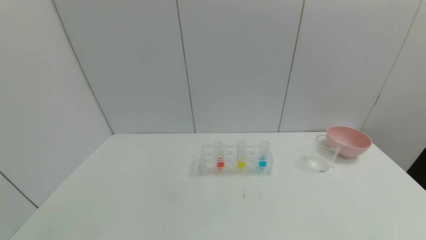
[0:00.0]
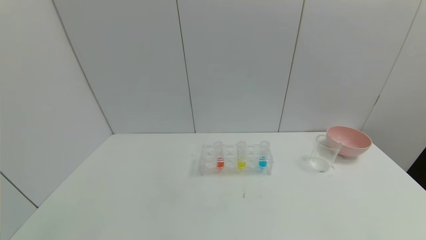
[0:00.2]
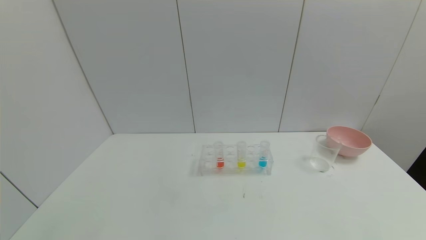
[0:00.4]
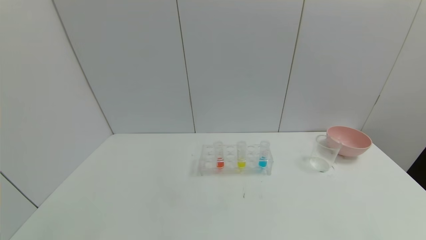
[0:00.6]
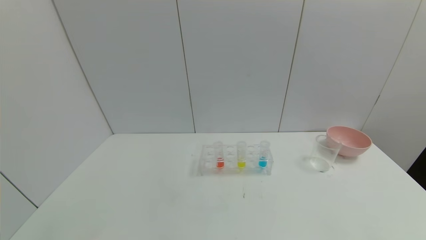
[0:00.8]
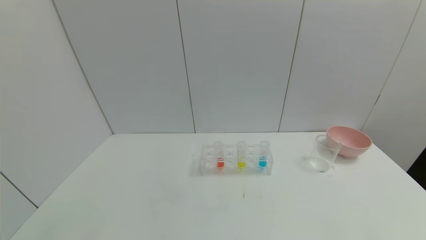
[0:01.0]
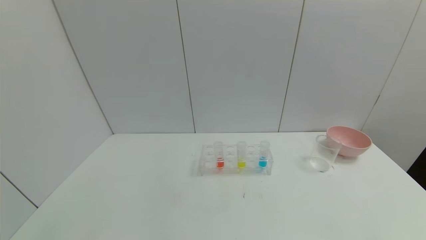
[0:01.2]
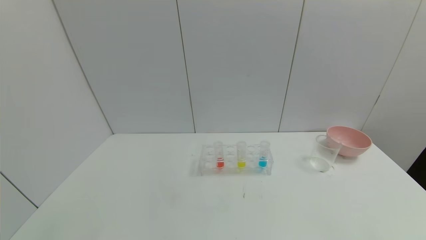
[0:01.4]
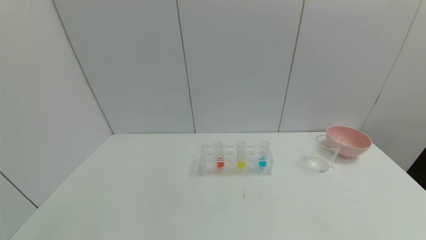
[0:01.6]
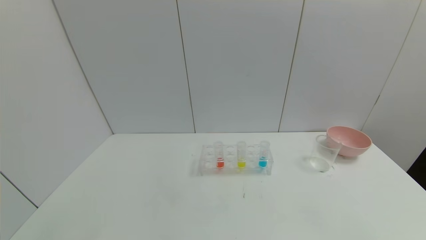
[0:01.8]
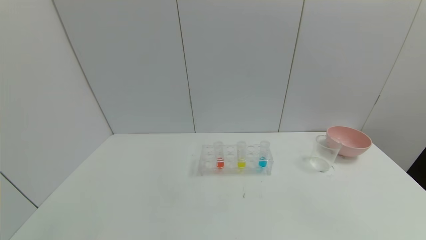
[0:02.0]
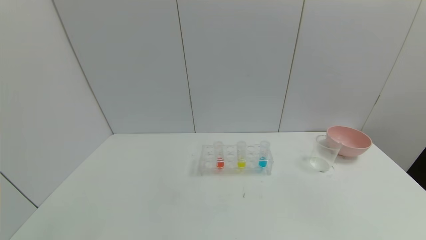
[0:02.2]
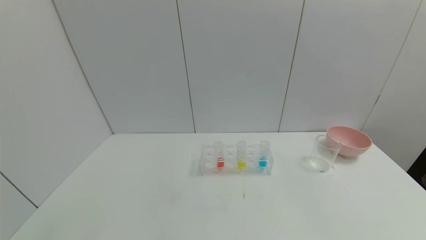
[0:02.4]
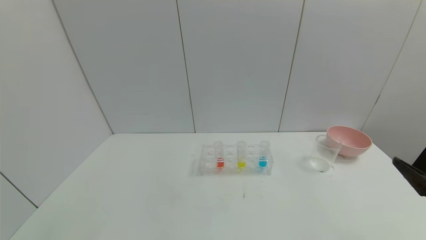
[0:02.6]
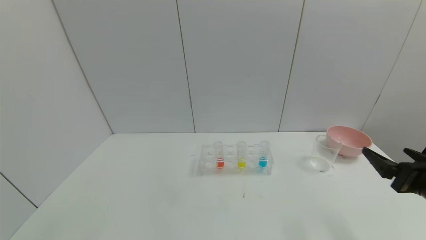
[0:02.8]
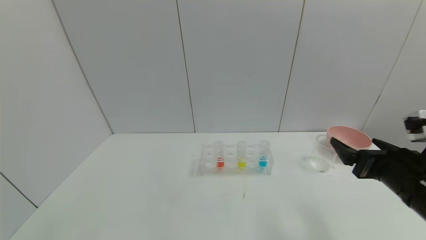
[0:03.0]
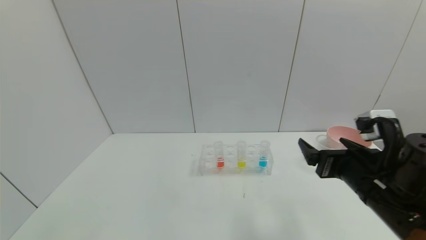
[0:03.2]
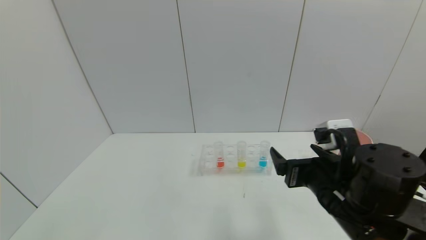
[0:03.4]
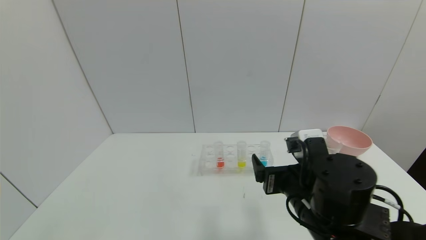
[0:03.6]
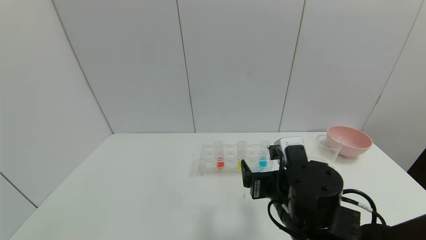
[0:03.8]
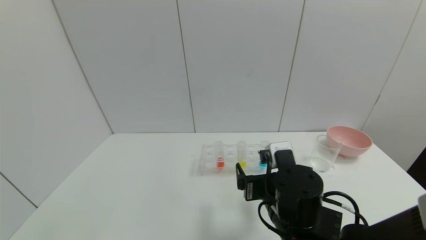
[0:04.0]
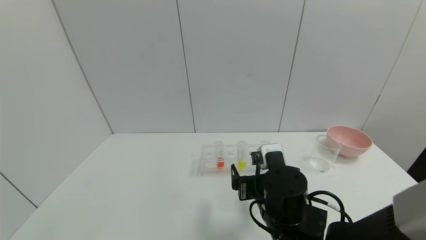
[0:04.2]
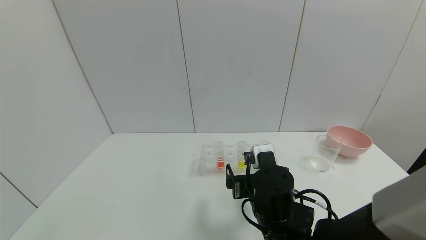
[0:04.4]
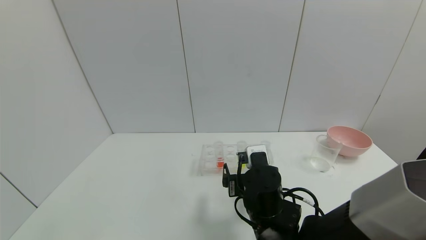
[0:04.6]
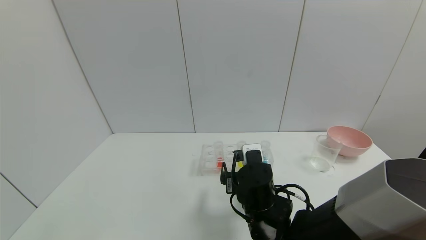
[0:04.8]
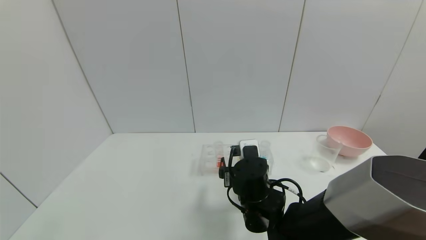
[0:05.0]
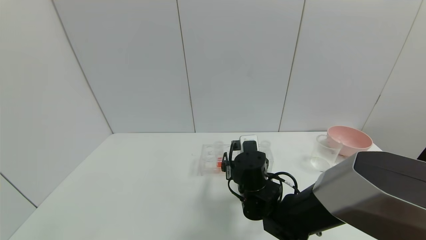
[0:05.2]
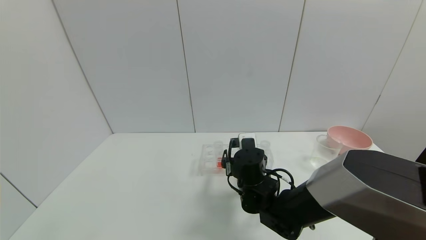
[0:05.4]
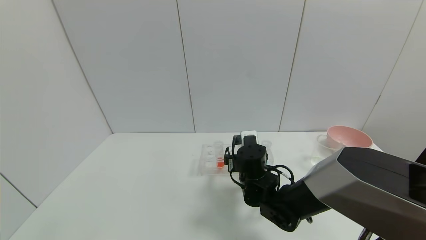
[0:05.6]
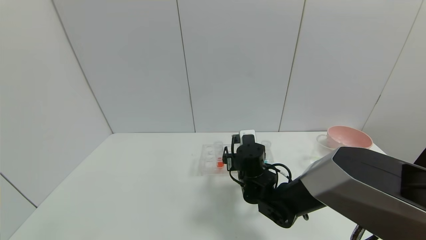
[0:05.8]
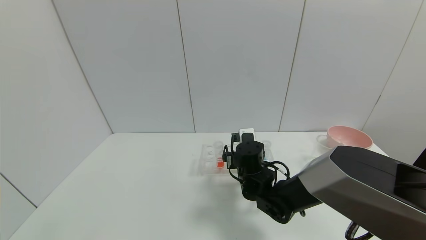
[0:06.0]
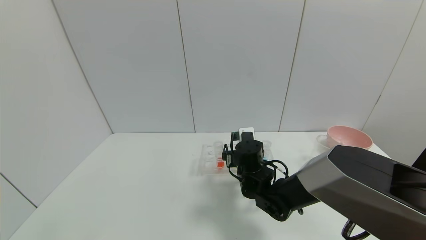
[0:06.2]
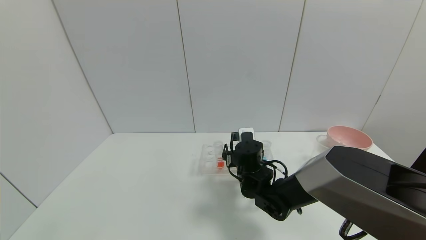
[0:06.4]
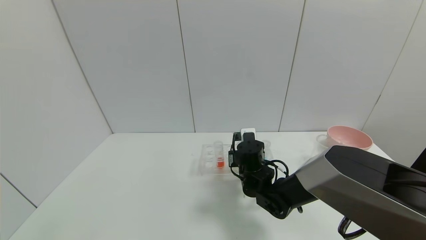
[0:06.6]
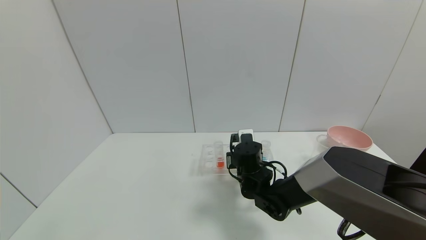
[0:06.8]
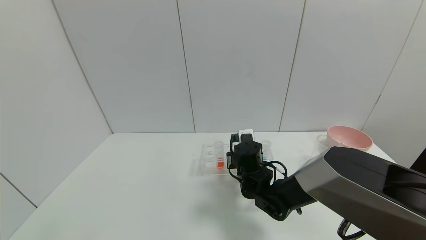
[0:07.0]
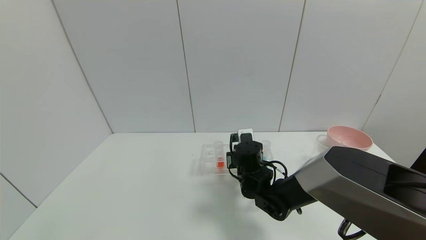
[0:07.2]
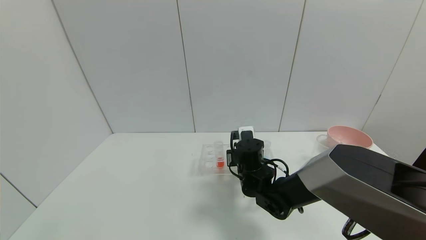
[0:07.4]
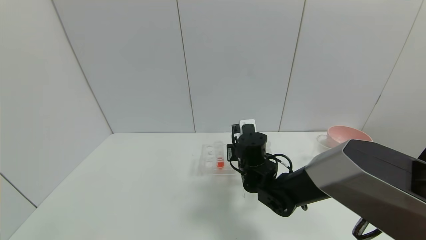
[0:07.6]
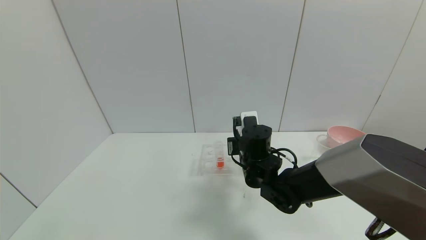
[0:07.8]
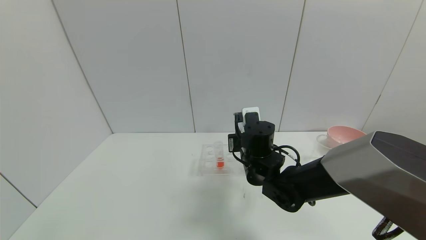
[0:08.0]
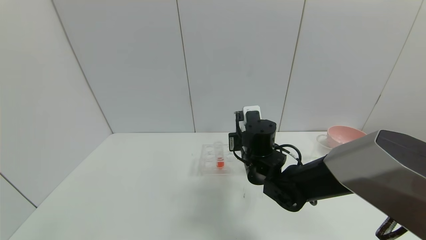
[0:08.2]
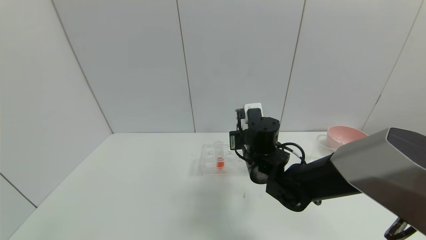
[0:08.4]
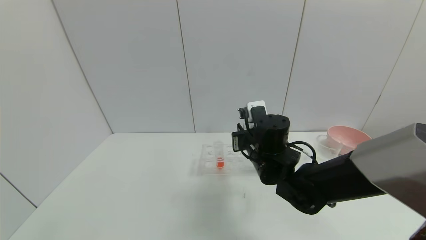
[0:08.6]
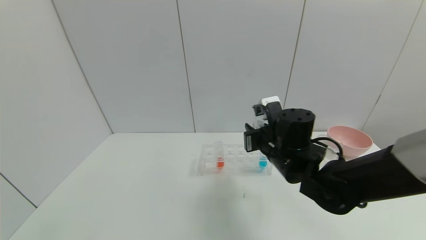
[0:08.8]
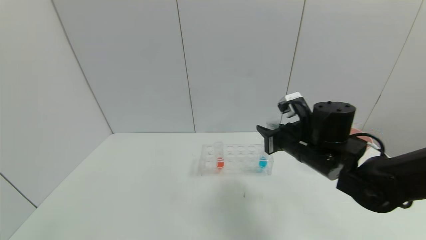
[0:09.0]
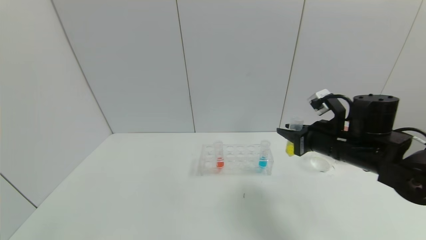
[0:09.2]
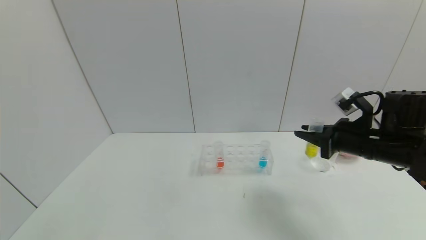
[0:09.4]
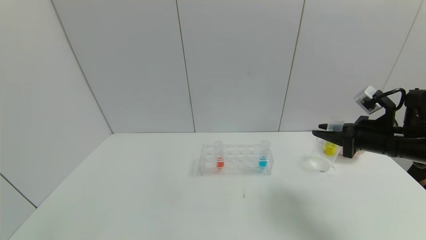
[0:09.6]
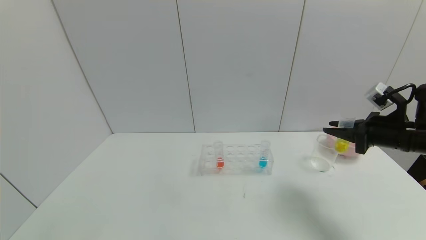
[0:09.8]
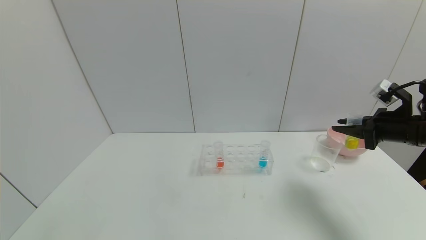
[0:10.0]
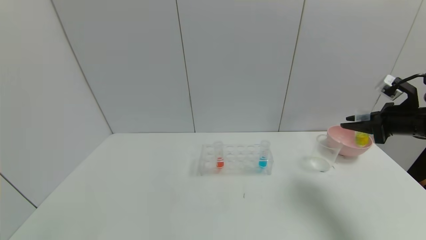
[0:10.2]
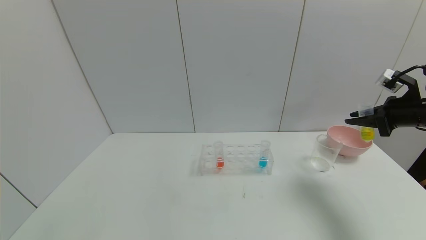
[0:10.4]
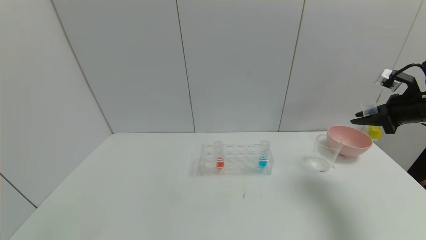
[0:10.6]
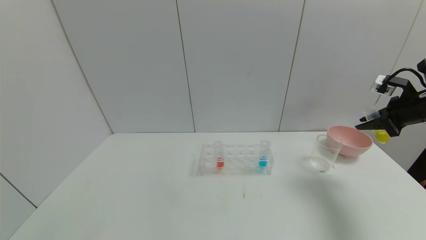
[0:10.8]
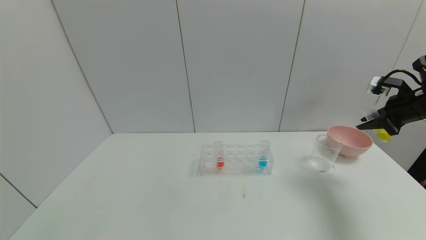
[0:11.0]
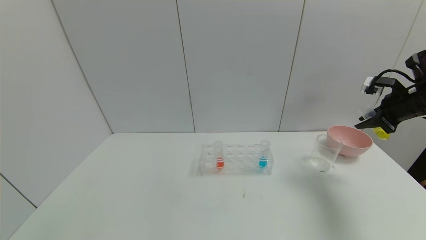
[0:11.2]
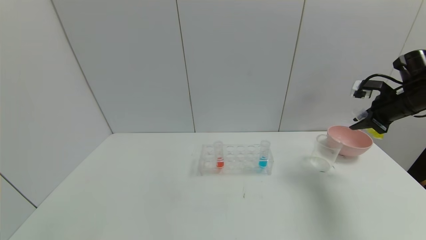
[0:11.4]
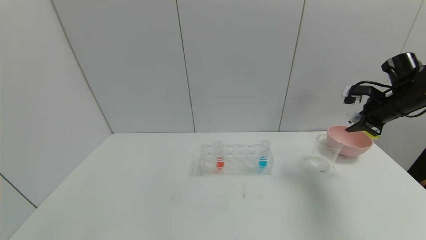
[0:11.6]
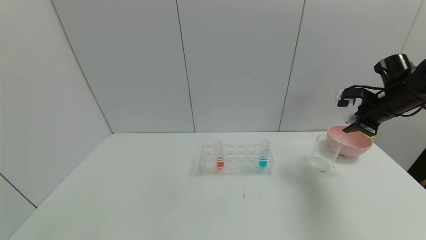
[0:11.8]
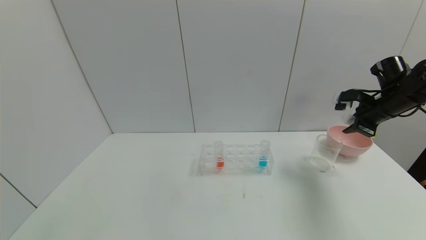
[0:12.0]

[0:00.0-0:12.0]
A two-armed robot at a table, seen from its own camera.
Task of the whole recording: pick up the test tube with yellow pigment and the test tube with blue pigment by grippers and pour them into the beaker.
Step, 0:00.0 to 0:09.0: Pick up the test tube containing the yellow reagent with right gripper.
0:01.6 to 0:03.0: The right gripper heads forward, covering approximately 25 cm.
0:03.0 to 0:04.4: The right gripper heads to the left and downward, covering some 20 cm.
0:04.4 to 0:06.0: The right gripper is displaced forward by roughly 10 cm.
0:06.0 to 0:07.6: The right gripper closes.
0:07.6 to 0:09.0: The right gripper shifts approximately 15 cm to the right and upward.
0:09.0 to 0:10.4: The right gripper moves to the right, approximately 25 cm.
0:10.4 to 0:12.0: The right gripper heads forward, covering roughly 5 cm.

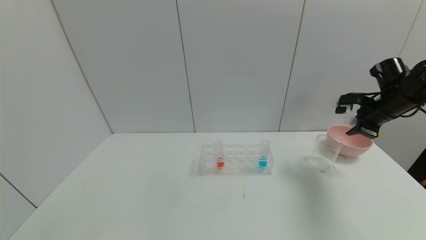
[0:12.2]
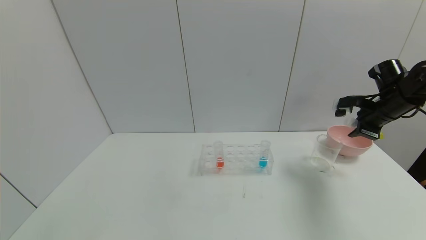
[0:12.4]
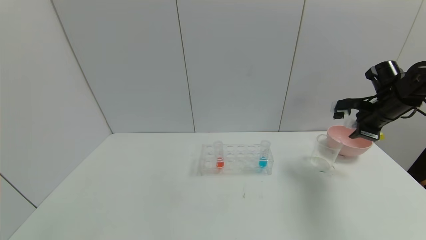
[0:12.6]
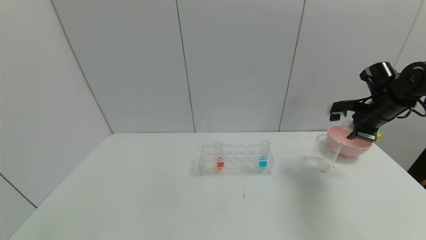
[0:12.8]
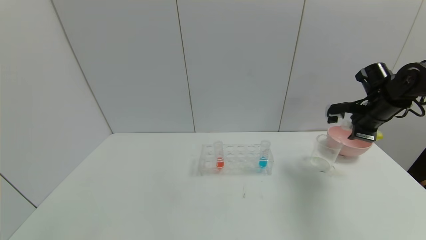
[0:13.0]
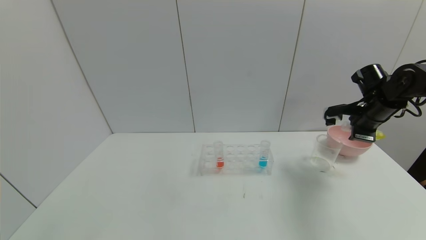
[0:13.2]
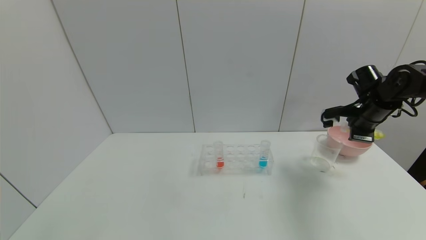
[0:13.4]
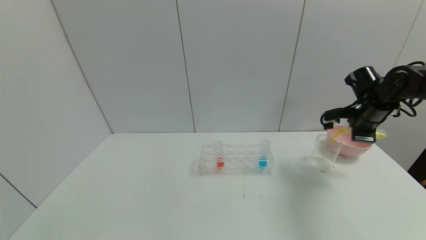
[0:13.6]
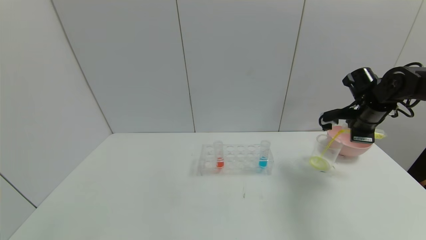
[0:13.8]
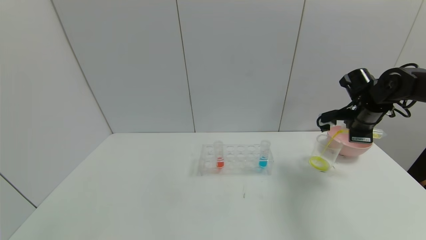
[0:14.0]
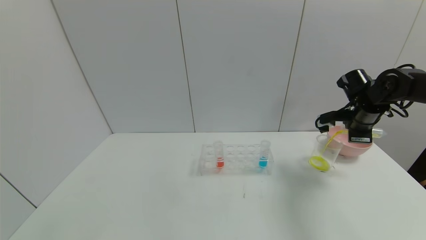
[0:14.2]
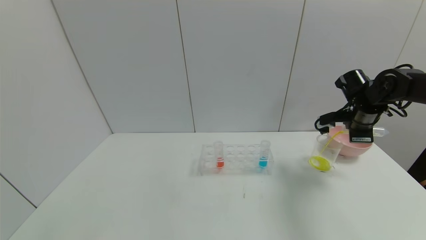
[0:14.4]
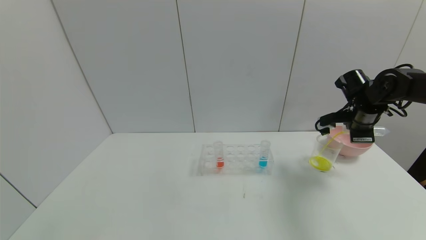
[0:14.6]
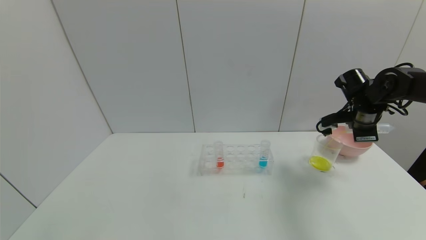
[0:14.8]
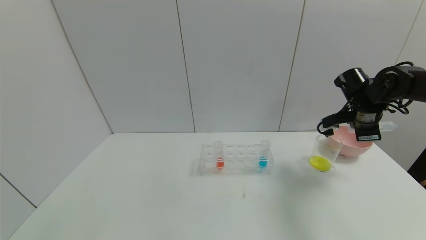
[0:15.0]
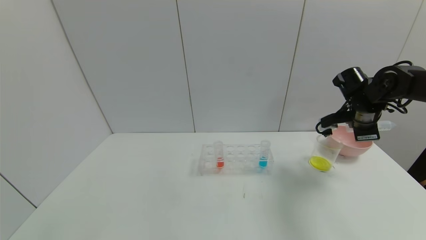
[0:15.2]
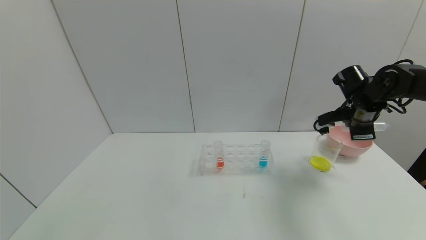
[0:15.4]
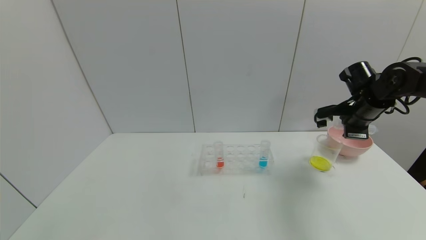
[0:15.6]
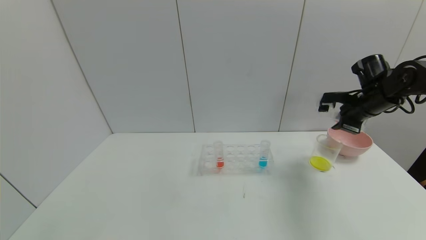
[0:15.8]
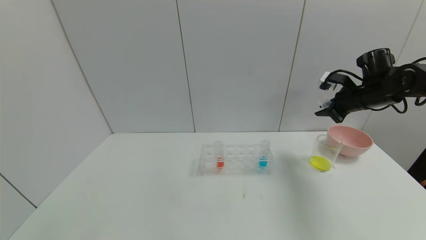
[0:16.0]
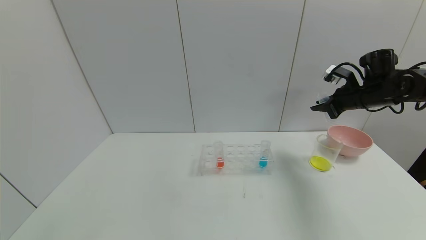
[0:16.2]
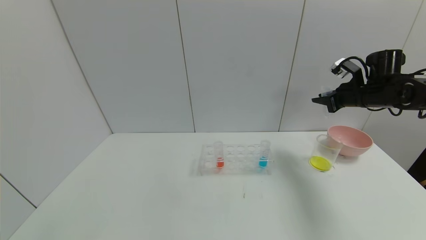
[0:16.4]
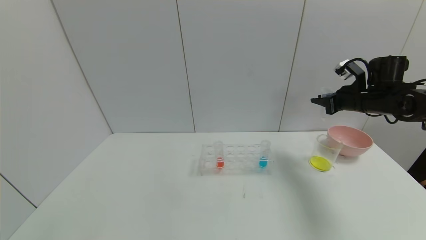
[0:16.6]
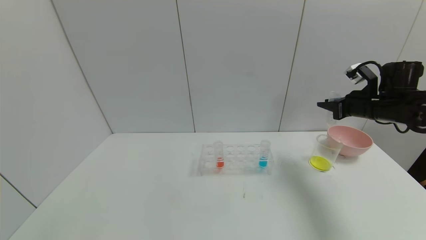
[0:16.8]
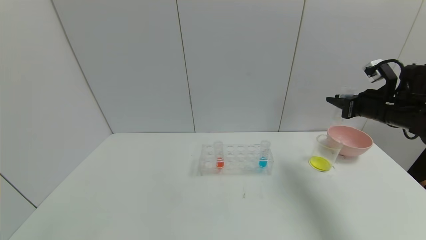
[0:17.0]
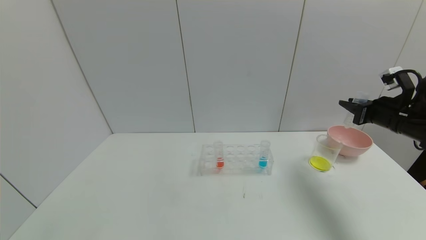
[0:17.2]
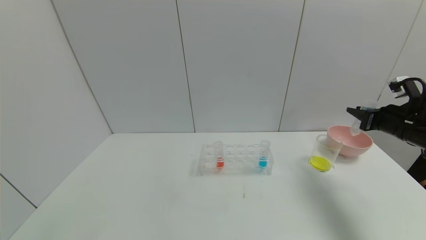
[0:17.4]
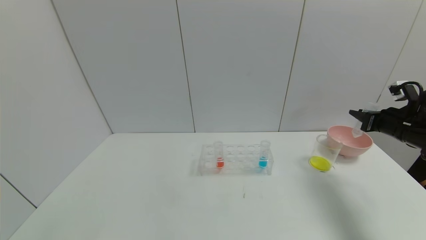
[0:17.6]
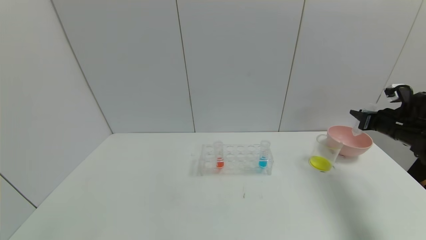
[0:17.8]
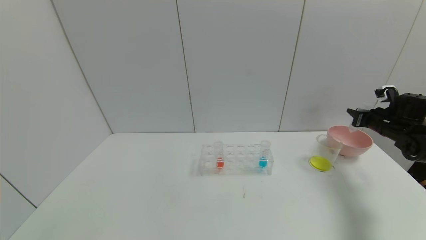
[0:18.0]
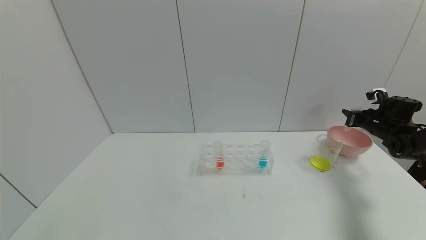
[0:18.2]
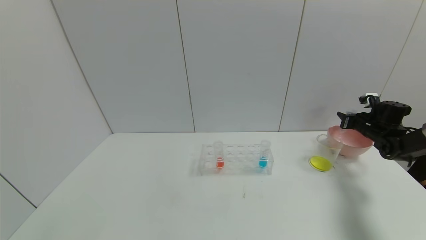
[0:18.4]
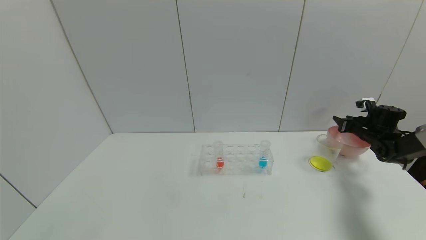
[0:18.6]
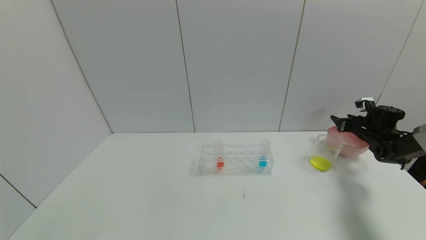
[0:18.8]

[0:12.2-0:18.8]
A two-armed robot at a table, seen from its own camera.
Task of the whole recording: pick up the test tube with yellow pigment and the test tube with blue pigment by grippers and pour them into the beaker.
Step, 0:12.2 to 0:17.0: Pour the yellow reagent into the graduated cylinder with right gripper.
0:13.8 to 0:15.4: There are only small adjustments of the grippers.
0:15.4 to 0:17.2: The right gripper shifts some 10 cm to the right and backward.
0:17.2 to 0:18.8: The right gripper shifts approximately 20 cm forward, downward and to the right, and opens its fingers.
